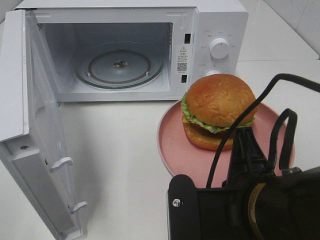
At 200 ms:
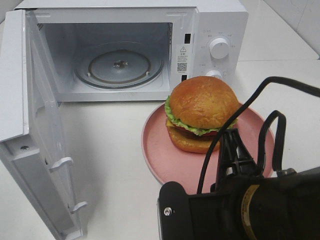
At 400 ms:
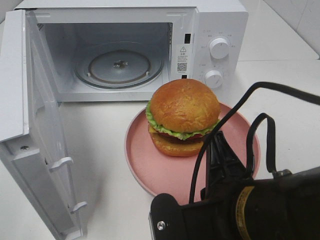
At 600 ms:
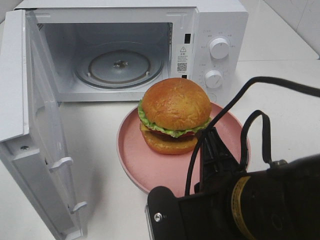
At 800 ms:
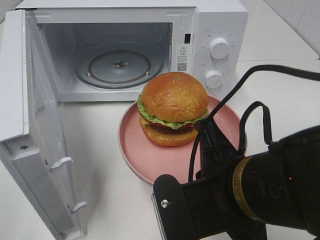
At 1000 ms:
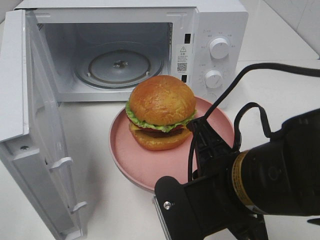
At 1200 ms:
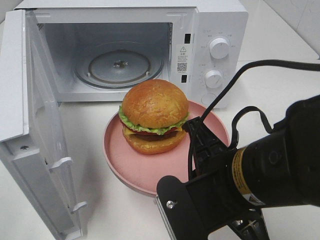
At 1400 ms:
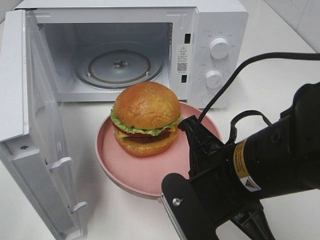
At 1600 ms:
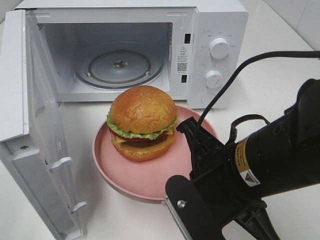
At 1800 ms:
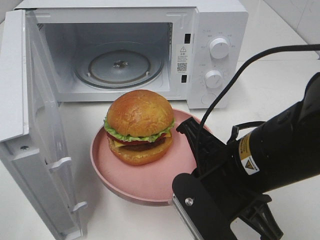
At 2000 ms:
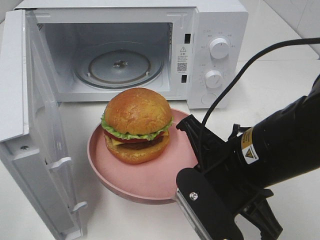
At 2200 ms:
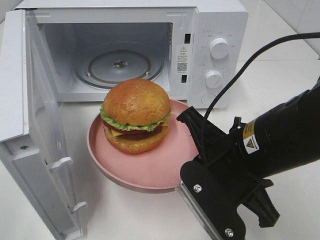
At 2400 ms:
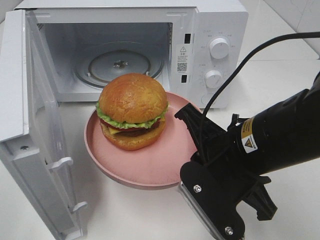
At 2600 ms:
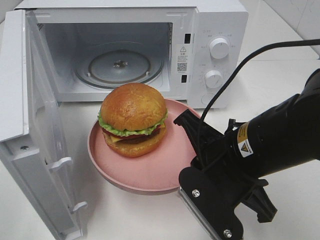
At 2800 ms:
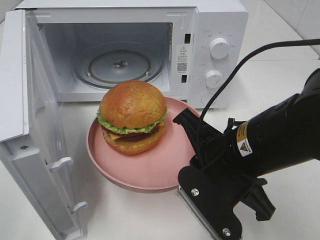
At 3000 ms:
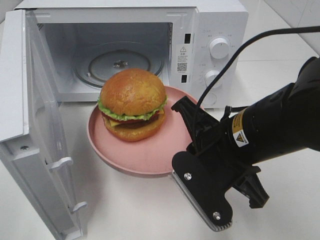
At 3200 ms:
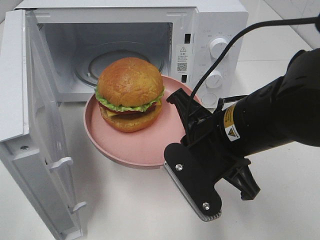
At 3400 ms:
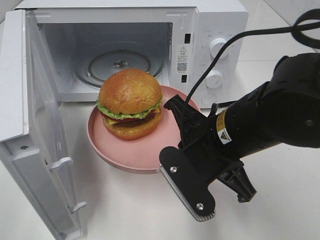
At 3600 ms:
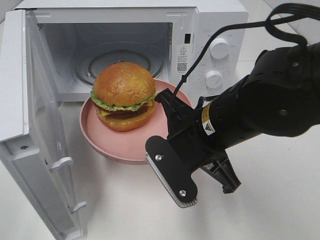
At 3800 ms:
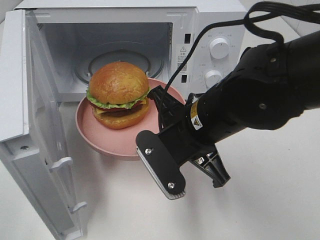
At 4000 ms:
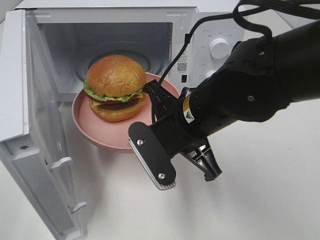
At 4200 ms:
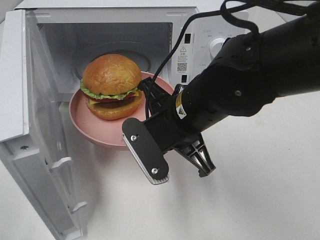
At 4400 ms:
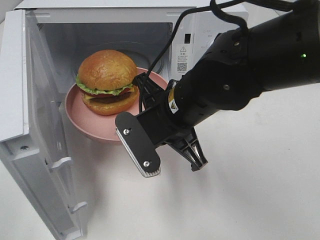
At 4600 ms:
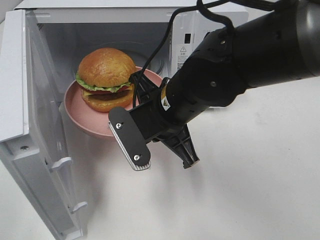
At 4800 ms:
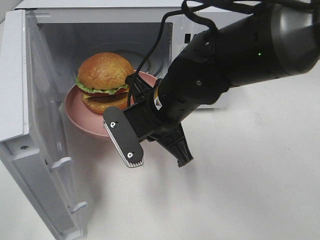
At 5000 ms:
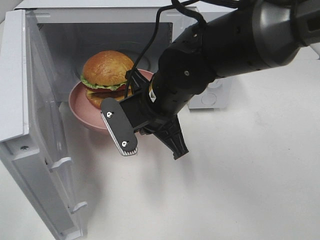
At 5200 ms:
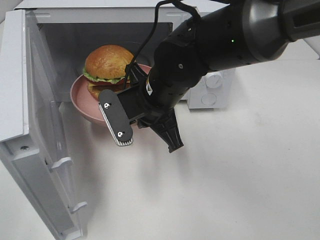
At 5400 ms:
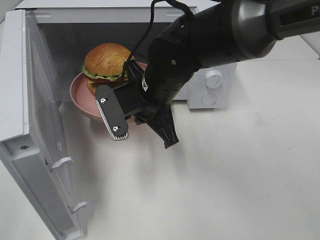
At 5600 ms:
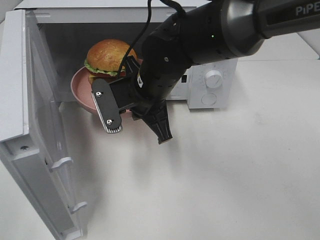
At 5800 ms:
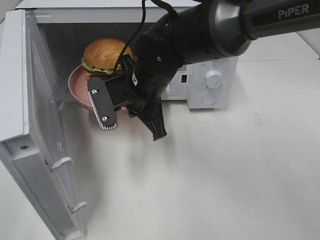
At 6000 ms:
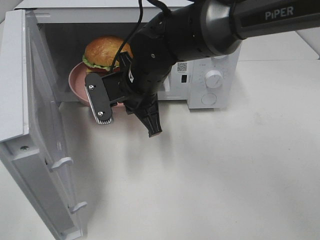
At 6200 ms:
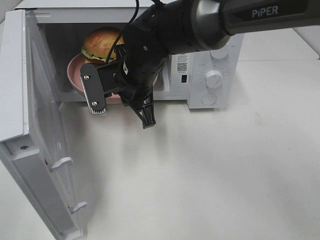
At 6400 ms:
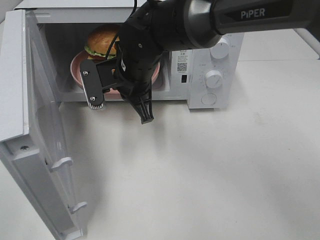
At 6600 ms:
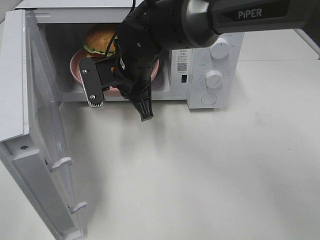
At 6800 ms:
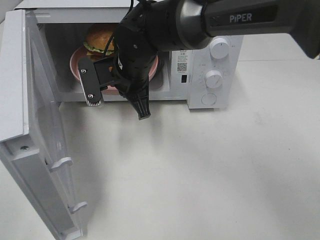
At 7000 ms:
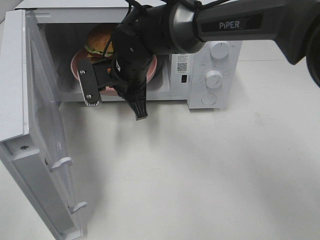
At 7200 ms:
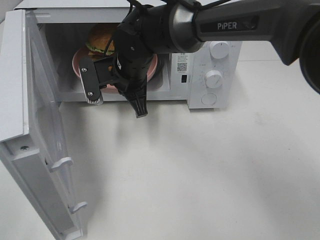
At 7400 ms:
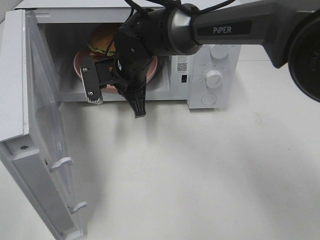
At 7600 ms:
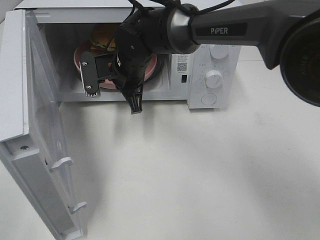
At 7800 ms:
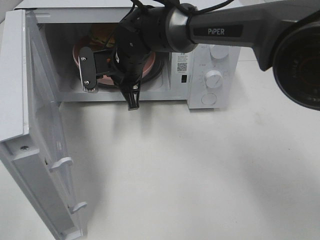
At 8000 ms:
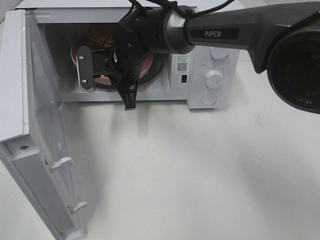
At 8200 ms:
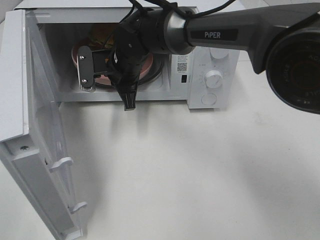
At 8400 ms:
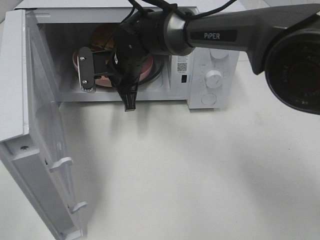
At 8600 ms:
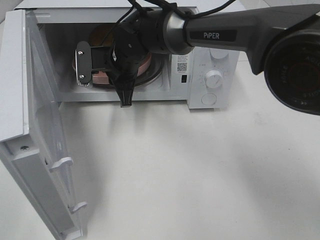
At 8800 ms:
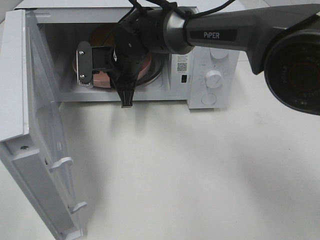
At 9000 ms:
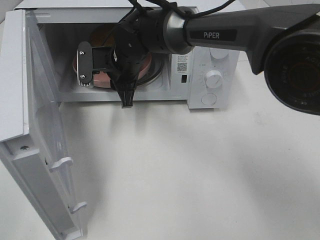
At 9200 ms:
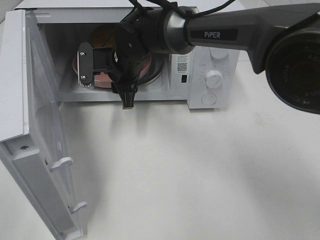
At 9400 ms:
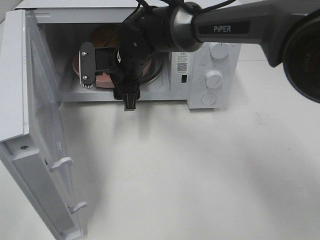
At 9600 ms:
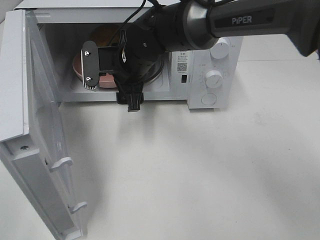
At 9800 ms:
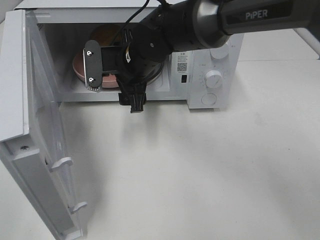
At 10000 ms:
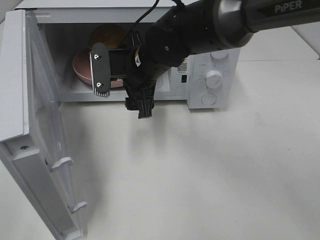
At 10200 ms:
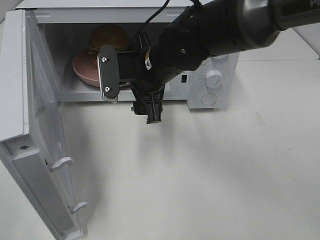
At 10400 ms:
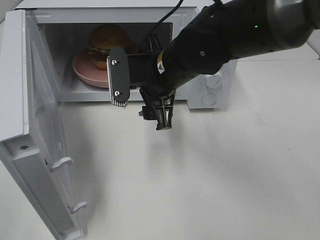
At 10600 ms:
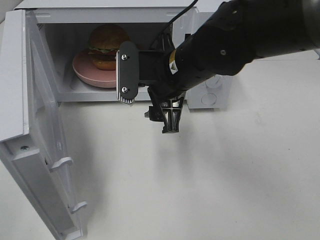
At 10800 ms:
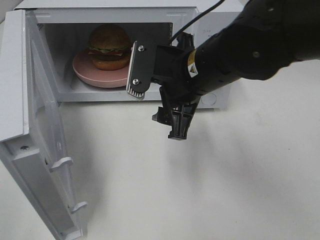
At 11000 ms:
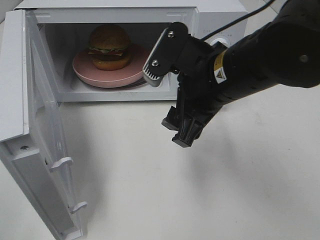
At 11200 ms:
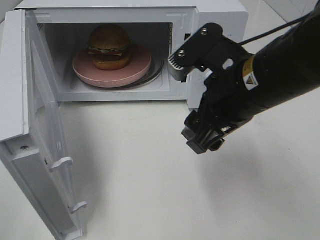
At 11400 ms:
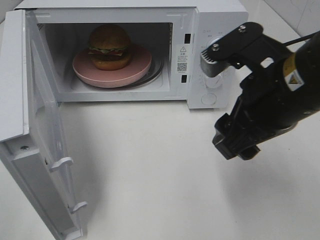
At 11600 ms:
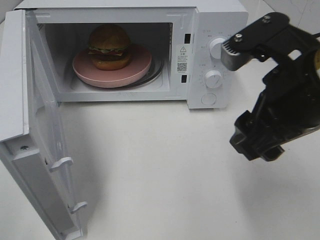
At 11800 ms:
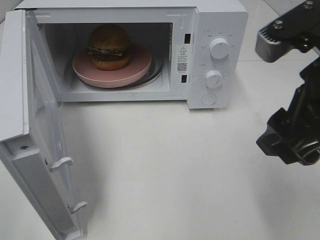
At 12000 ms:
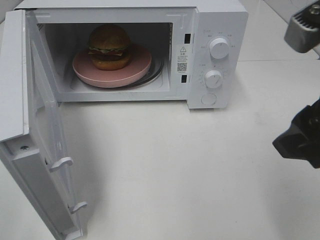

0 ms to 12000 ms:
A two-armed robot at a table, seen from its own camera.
Task of the whole recording: Heat the burger.
Step, 0 ms to 8800 ms: Right hand: place the plate in the microwave.
0 ms to 1600 ms: The right gripper moves forward, some 5 cm.
3000 ms to 4400 ms: The right gripper shifts about 10 cm forward and to the left.
4400 ms to 6000 ms: The right gripper shifts approximately 10 cm forward and to the left.
6000 ms to 7600 ms: The right gripper heads forward, covering roughly 5 cm.
7600 ms to 9000 ms: The right gripper opens up.
9000 ms to 10400 ms: The right gripper shifts roughly 15 cm backward and to the right, and opens up.
10400 ms to 12000 ms: The right gripper travels backward, to the right and upward by some 25 cm.

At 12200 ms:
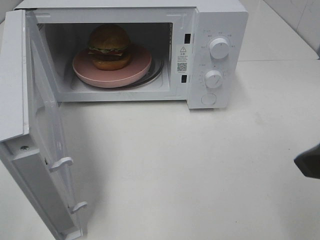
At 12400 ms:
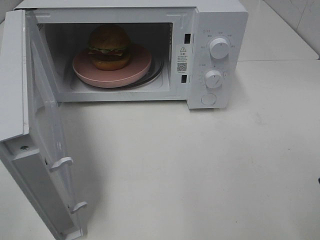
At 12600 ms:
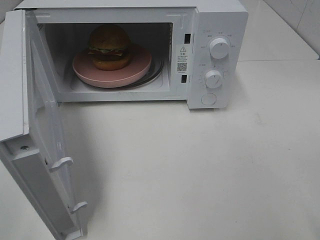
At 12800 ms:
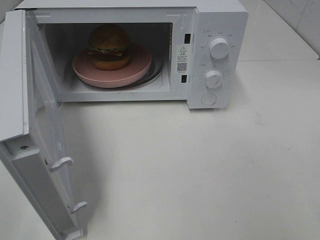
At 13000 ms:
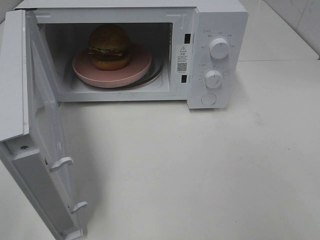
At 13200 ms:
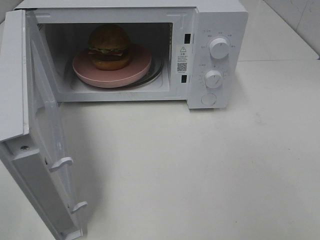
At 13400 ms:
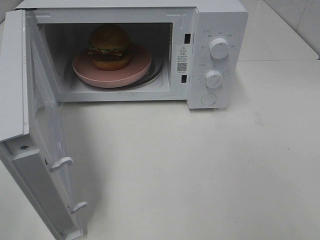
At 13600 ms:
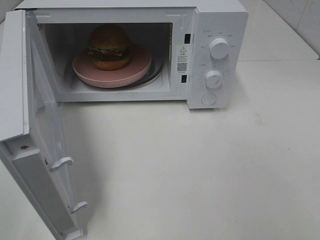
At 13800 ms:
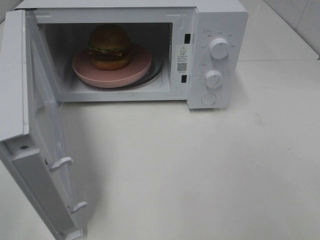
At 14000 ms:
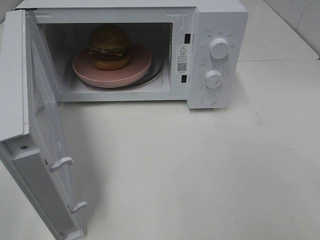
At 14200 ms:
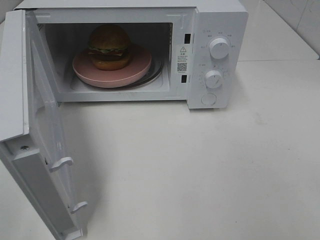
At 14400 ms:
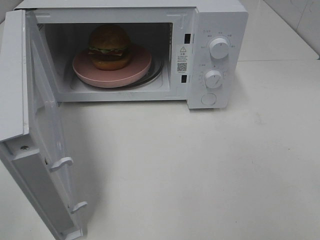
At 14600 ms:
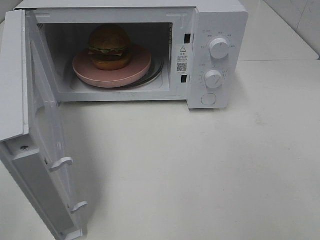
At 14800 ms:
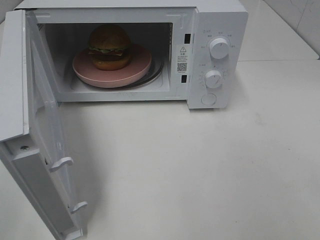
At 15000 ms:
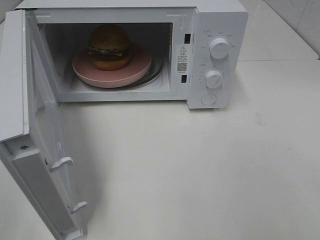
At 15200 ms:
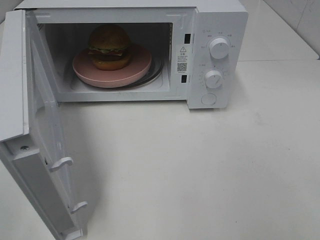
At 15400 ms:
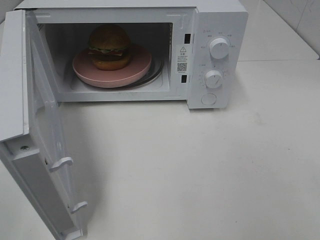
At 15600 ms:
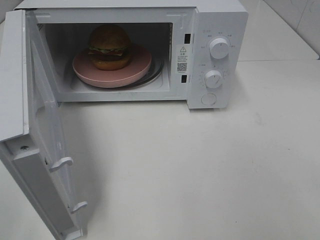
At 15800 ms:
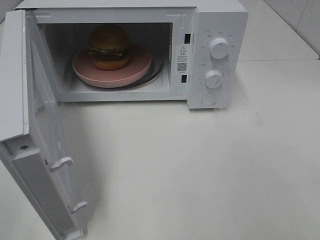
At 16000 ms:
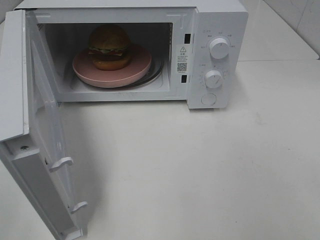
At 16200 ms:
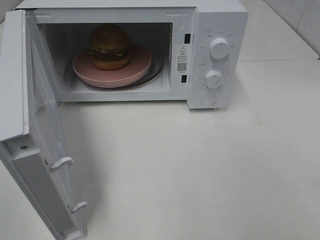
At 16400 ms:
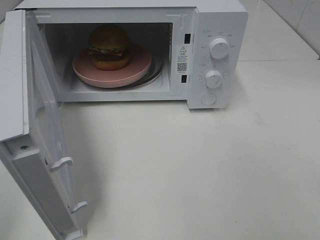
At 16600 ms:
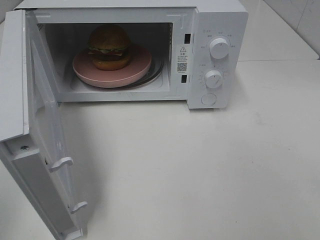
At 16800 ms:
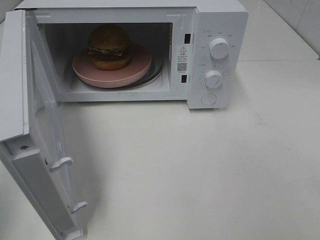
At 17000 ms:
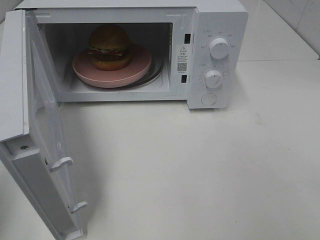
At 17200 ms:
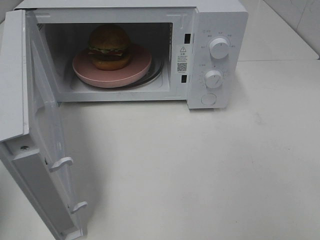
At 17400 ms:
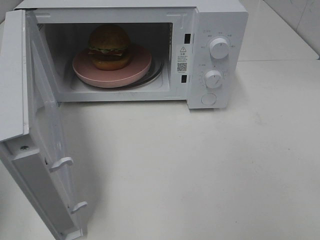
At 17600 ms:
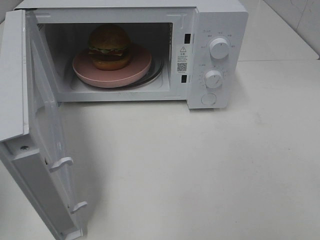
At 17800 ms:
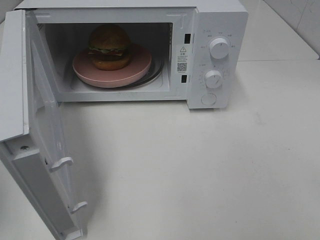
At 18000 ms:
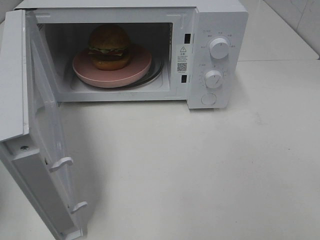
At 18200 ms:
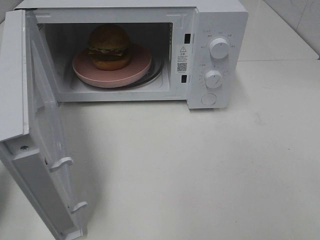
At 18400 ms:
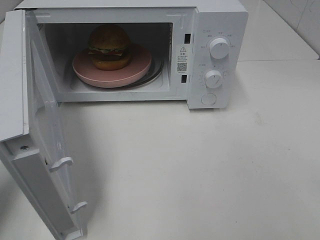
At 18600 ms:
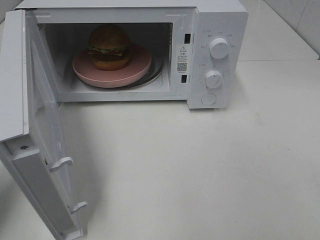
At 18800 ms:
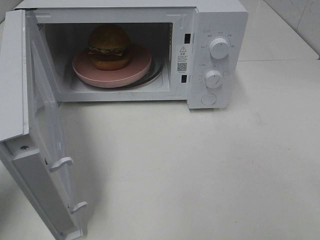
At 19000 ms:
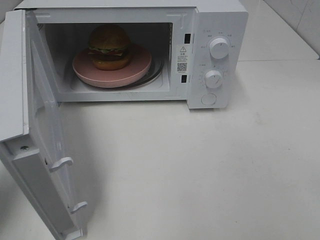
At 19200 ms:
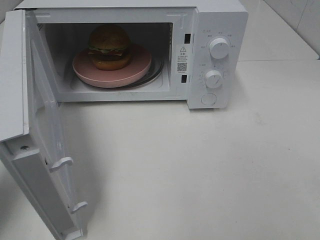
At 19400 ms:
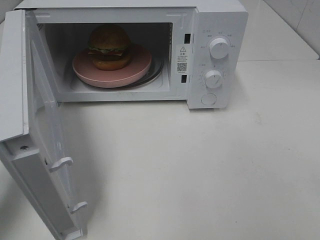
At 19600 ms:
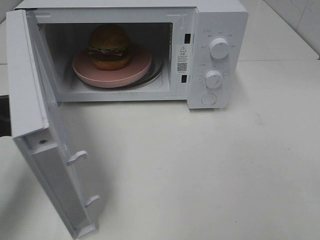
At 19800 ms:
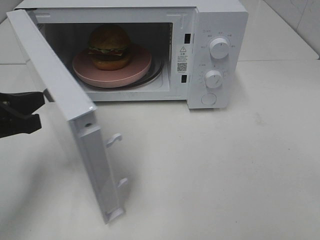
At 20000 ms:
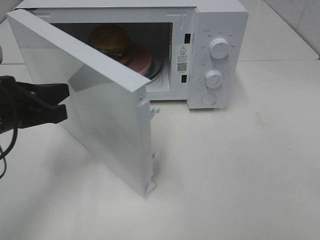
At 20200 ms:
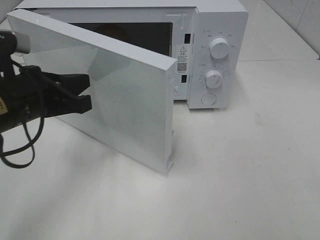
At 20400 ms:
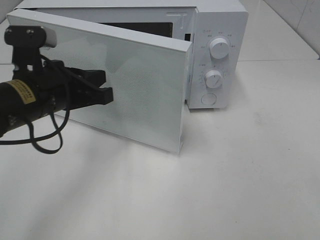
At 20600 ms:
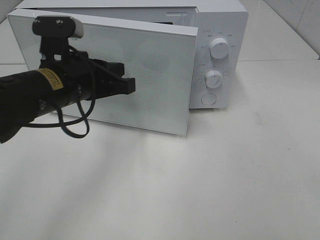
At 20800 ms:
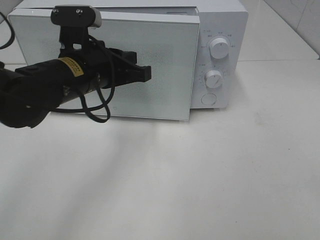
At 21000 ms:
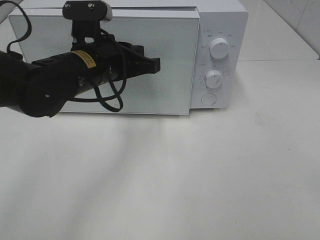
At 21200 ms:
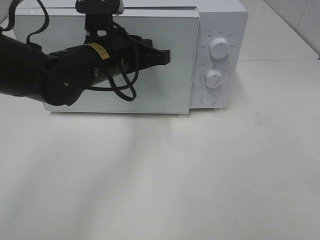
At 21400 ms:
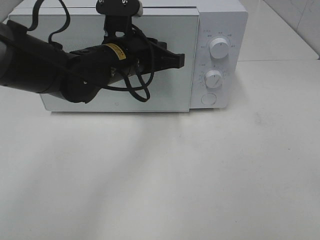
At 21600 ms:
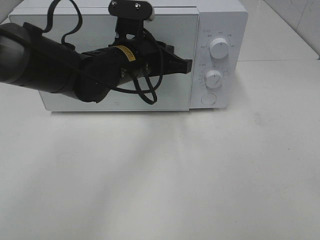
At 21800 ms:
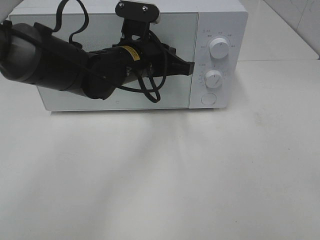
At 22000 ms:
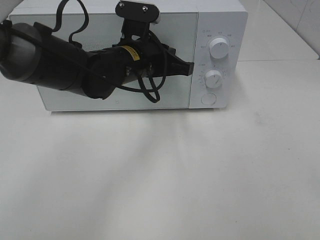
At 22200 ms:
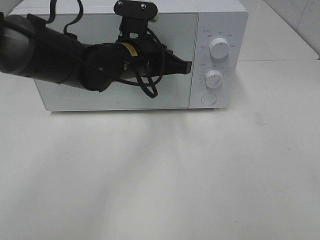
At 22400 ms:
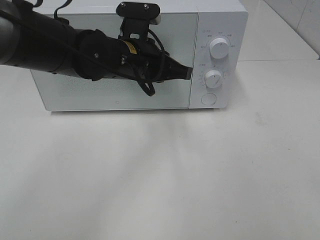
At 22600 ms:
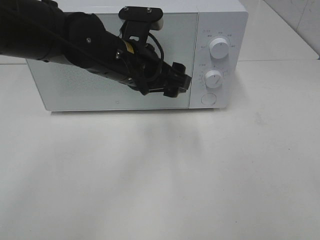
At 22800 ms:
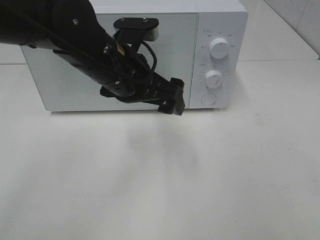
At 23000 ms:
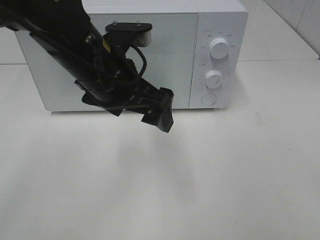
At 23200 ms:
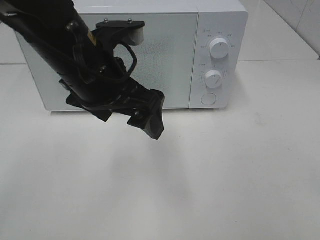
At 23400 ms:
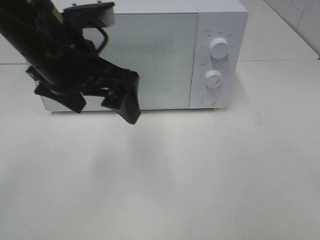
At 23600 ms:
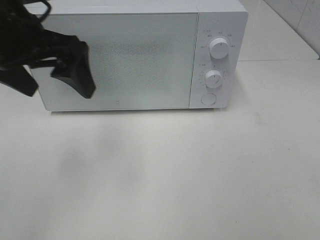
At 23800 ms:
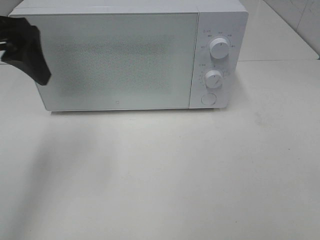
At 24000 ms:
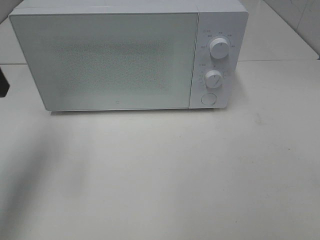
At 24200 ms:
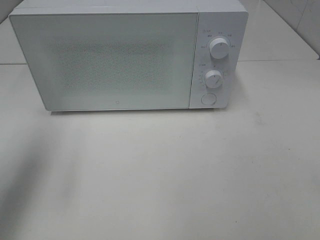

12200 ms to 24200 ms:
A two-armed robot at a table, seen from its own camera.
Task of the whole recording: Heat the burger.
Step, 12200 ms to 22200 ms: Left hand: close the microwave door.
12200 ms to 13800 ms: The right gripper moves backward and to the right, about 15 cm.
13800 ms to 15200 ms: Neither gripper changes place.
18200 ms to 19800 ms: The left gripper heads to the right and forward, covering about 10 cm.
19800 ms to 21200 ms: The left gripper goes some 20 cm to the right and forward.
21200 ms to 22600 ms: The left gripper opens.
22600 ms to 24200 ms: The left gripper is displaced to the left by about 25 cm.
